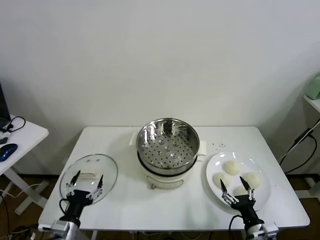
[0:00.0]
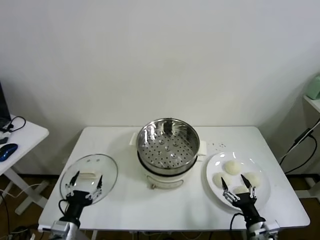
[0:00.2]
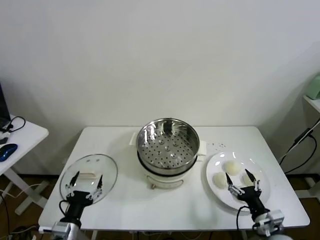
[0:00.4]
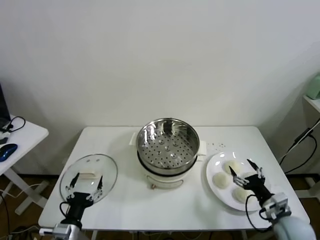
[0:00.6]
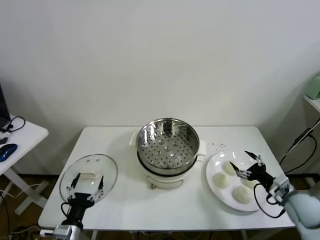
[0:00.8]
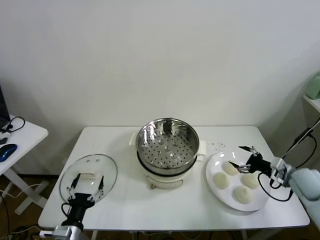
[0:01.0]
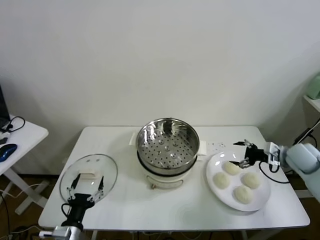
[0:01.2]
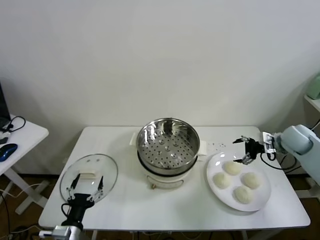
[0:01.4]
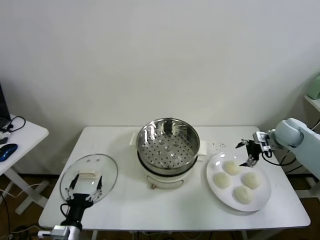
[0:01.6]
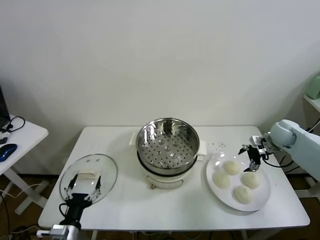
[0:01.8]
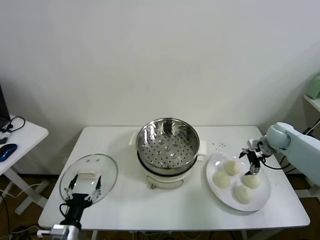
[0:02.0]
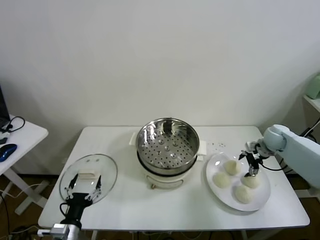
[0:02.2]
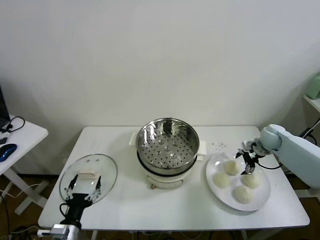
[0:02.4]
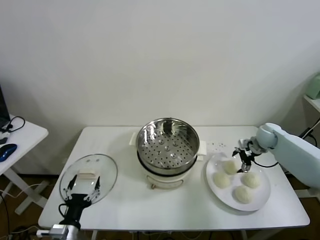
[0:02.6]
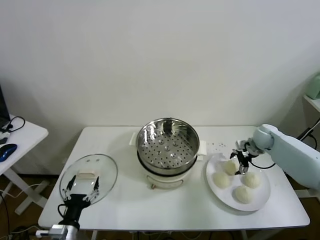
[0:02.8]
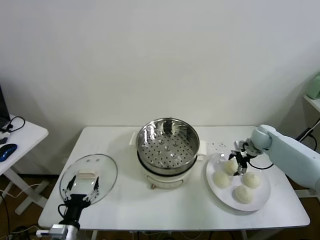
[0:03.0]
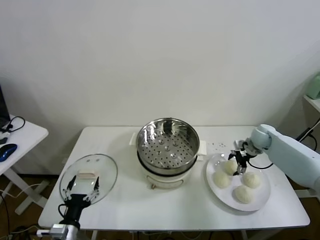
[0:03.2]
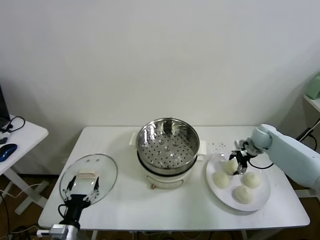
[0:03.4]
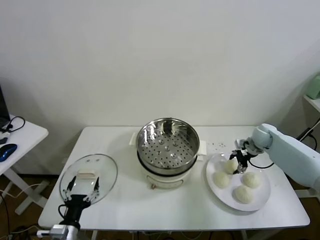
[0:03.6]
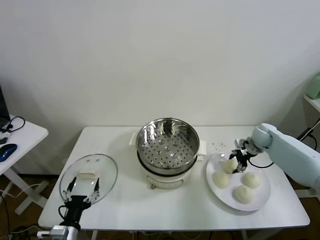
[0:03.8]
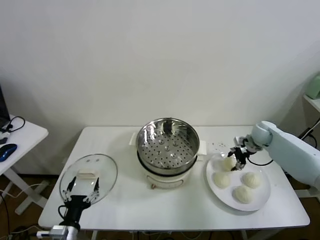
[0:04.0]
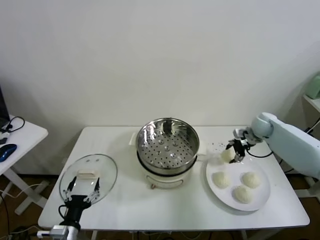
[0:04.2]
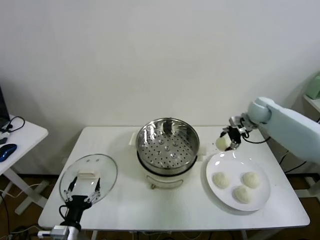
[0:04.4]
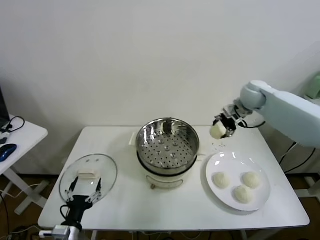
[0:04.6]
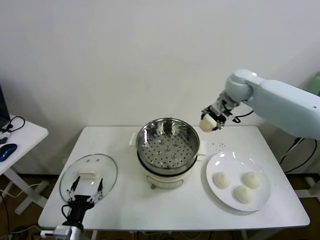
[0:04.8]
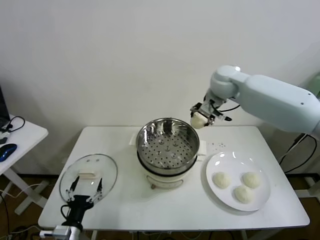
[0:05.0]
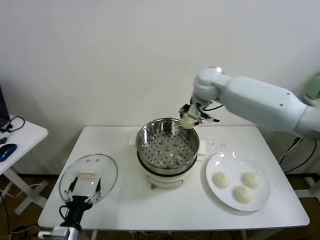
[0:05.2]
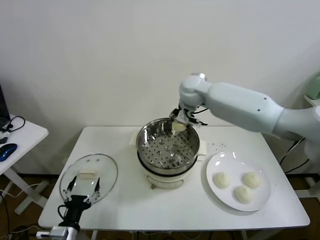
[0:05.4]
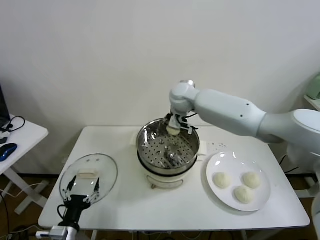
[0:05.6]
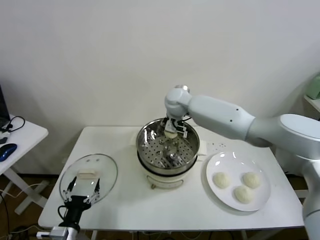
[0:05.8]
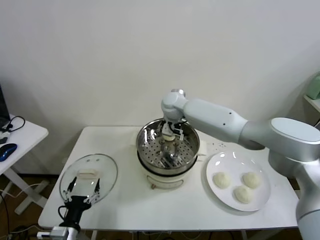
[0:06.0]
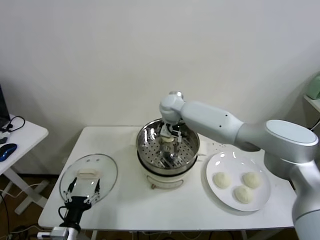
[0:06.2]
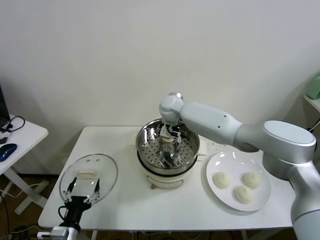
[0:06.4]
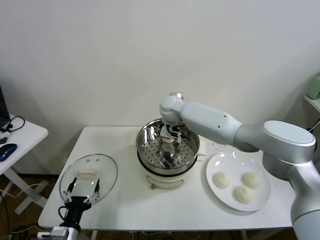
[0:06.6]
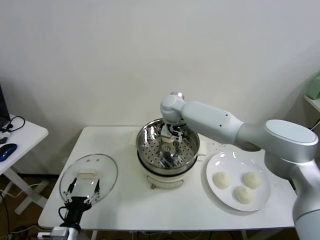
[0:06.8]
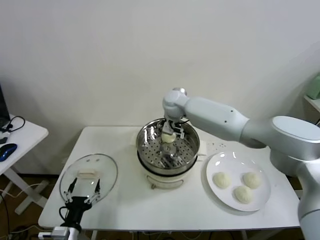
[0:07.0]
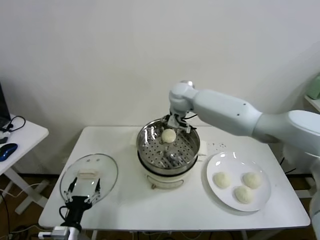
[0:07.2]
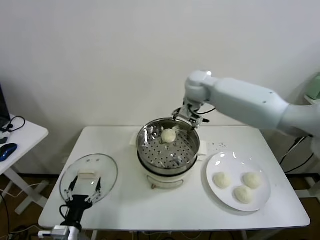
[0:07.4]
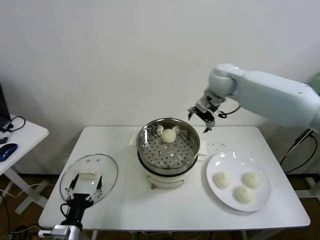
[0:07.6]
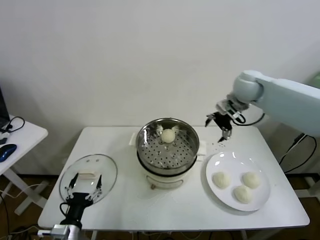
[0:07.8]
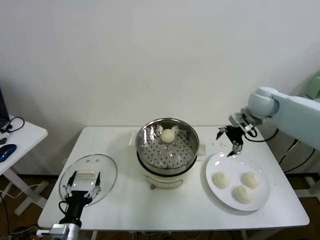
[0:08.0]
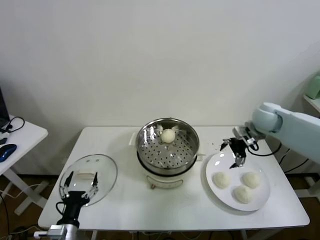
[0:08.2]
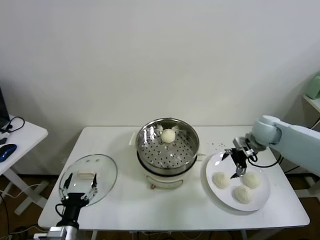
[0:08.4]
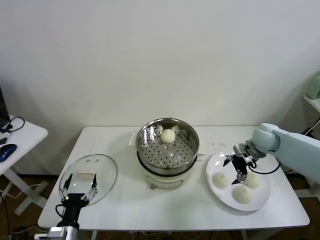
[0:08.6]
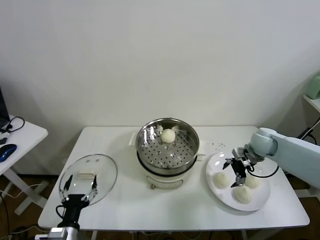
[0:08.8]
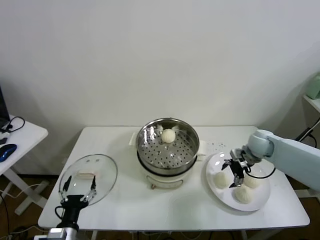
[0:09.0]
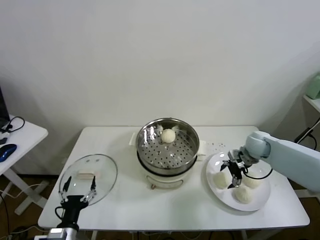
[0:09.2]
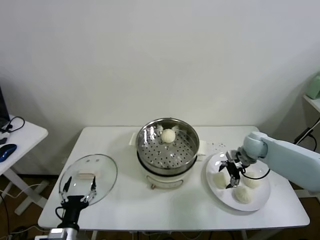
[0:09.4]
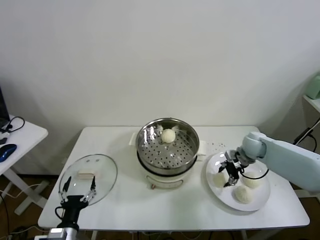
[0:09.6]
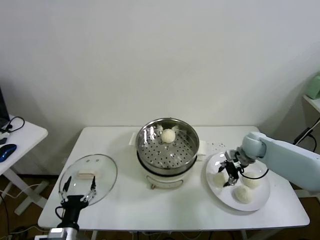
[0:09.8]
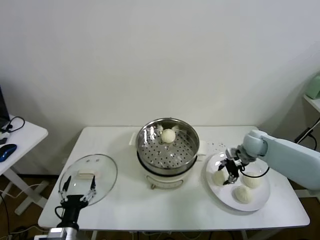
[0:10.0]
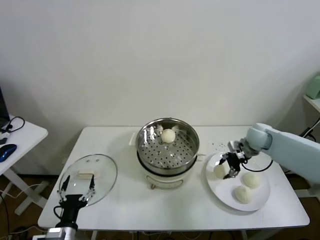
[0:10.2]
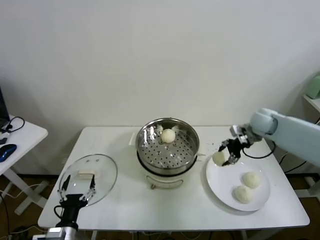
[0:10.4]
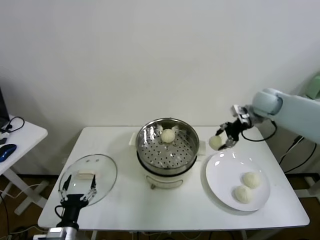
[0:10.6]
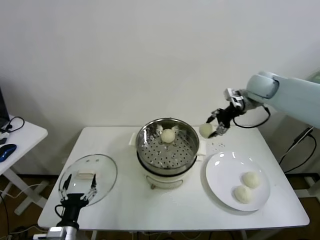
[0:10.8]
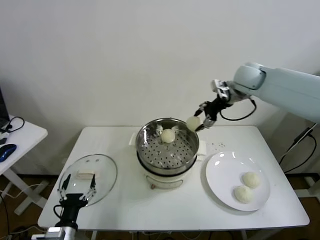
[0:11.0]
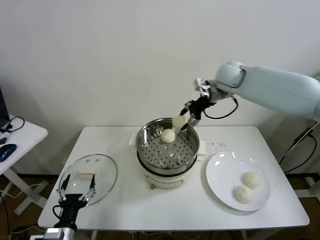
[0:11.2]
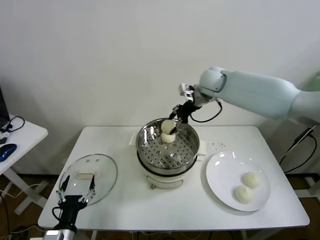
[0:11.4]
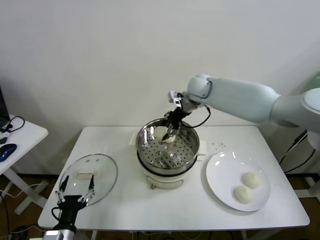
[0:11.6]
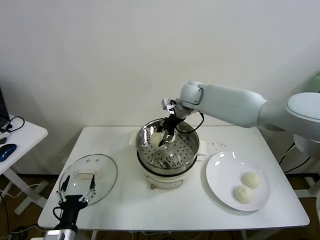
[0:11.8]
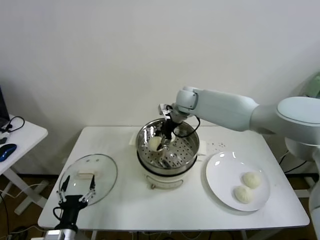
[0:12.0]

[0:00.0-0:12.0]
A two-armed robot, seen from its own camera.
Task of the whole recording: take steamed baozi put them in steamer.
Step, 0:00.0 to 0:03.4: Grasp the baozi in the plate with right gripper.
Step, 0:03.6 to 0:07.0: Place the baozi on the steamer with right gripper.
Step, 0:07.2 to 0:09.4: Grasp the baozi in the plate with right gripper.
0:01.6 to 0:03.0: The right gripper heads downward, covering about 5 cm.
0:03.0 to 0:04.4: The right gripper goes approximately 15 cm upward and to the left, and closes up.
0:04.4 to 0:06.0: The right gripper is displaced to the left by about 30 cm.
0:06.0 to 0:07.6: The right gripper travels to the right and upward by about 20 cm, and opens its fingers.
0:07.6 to 0:09.0: The right gripper goes about 25 cm downward and to the right.
0:09.0 to 0:10.4: The right gripper is displaced upward by approximately 10 cm, and closes.
0:10.4 to 0:12.0: The right gripper moves to the left, roughly 25 cm.

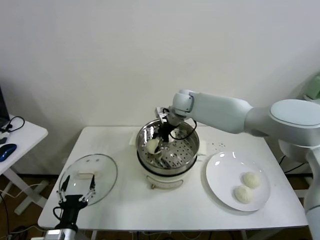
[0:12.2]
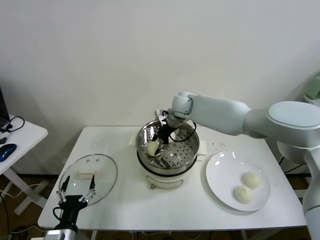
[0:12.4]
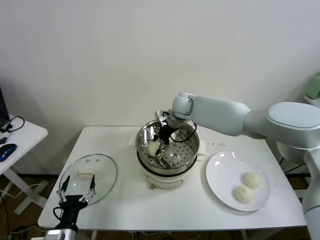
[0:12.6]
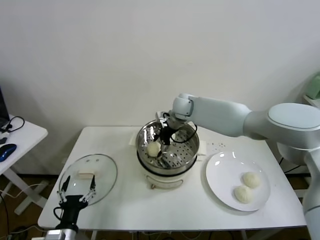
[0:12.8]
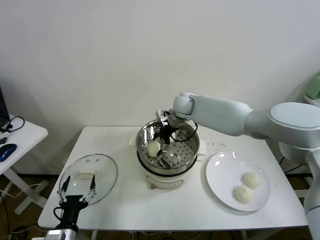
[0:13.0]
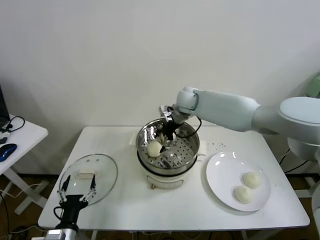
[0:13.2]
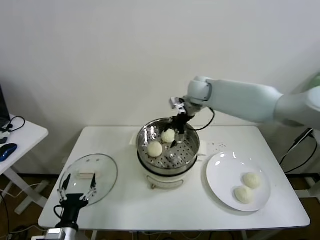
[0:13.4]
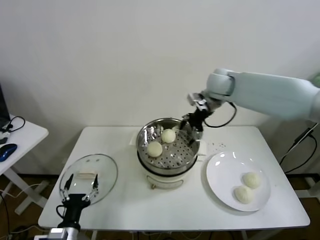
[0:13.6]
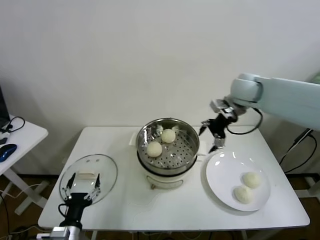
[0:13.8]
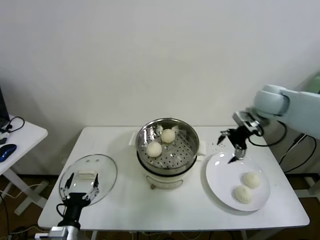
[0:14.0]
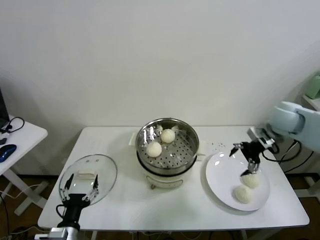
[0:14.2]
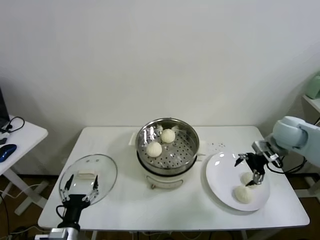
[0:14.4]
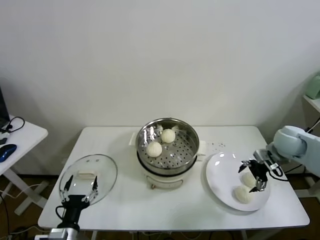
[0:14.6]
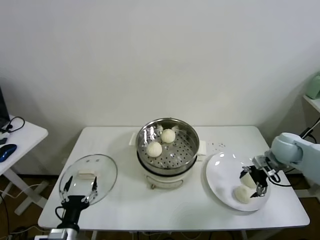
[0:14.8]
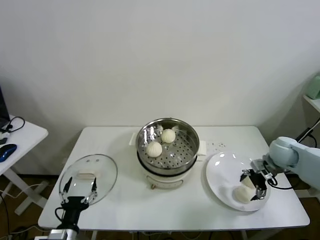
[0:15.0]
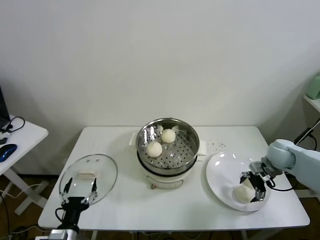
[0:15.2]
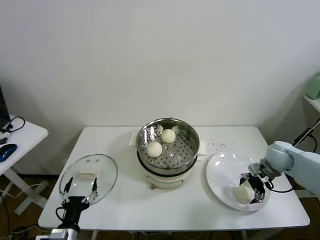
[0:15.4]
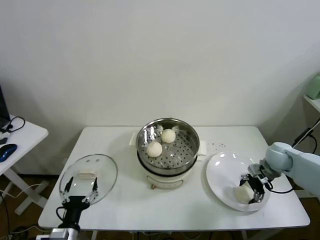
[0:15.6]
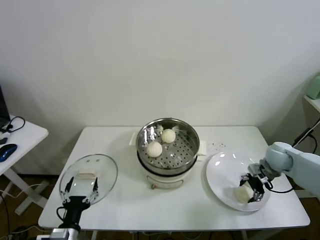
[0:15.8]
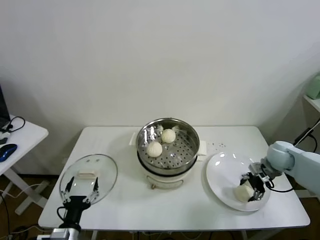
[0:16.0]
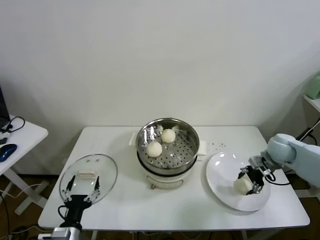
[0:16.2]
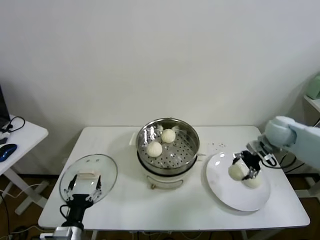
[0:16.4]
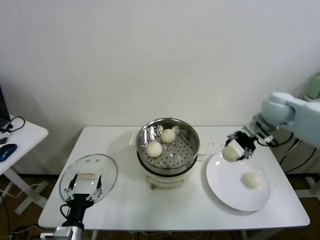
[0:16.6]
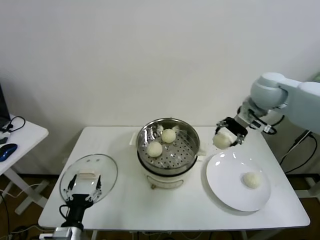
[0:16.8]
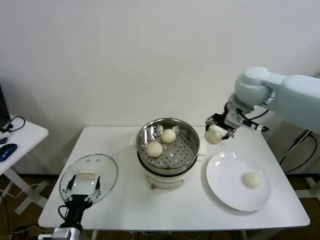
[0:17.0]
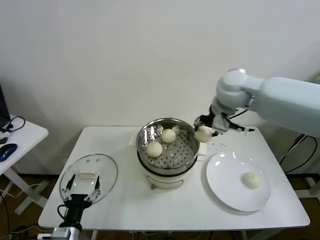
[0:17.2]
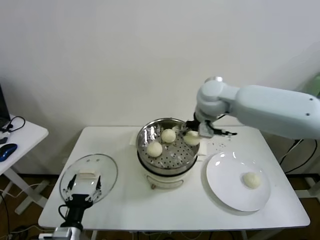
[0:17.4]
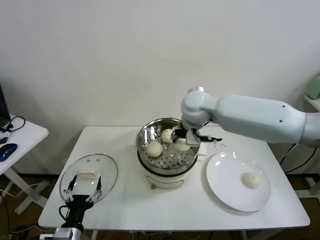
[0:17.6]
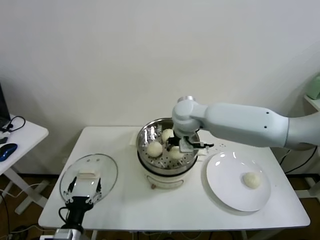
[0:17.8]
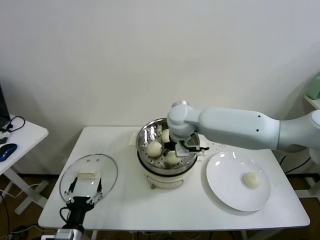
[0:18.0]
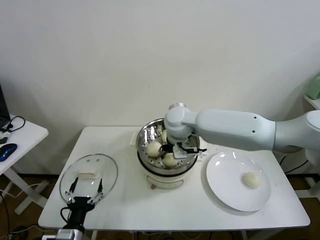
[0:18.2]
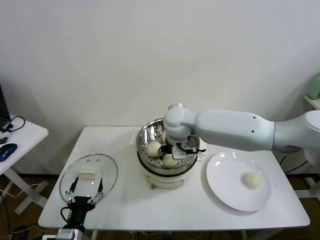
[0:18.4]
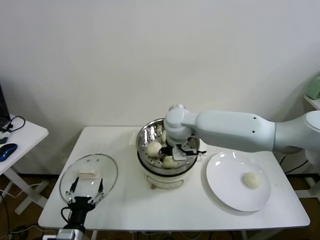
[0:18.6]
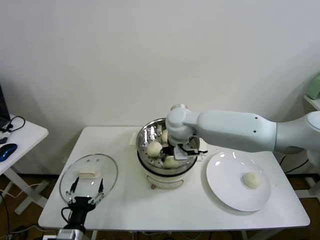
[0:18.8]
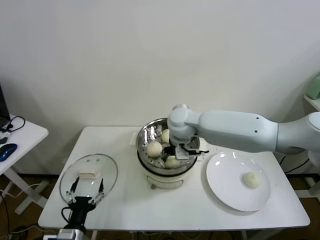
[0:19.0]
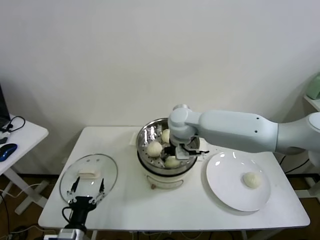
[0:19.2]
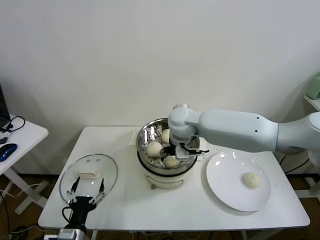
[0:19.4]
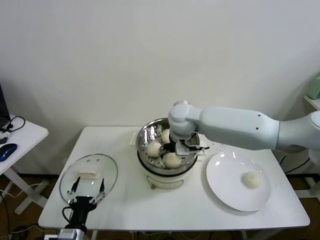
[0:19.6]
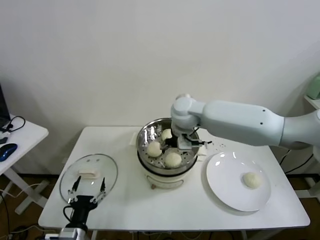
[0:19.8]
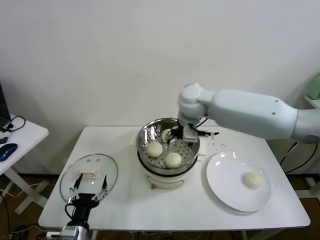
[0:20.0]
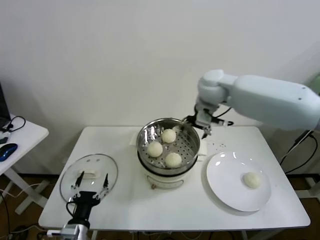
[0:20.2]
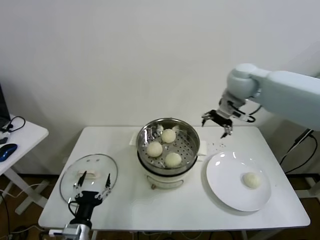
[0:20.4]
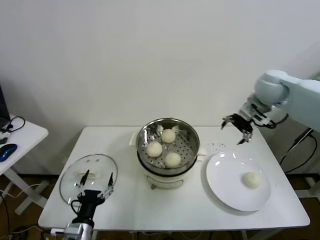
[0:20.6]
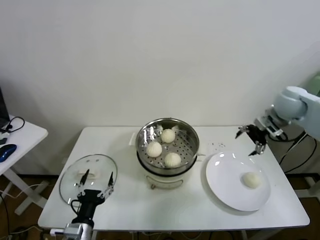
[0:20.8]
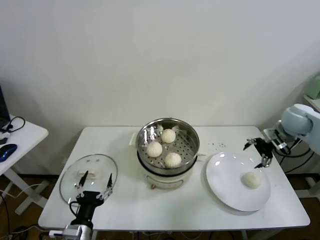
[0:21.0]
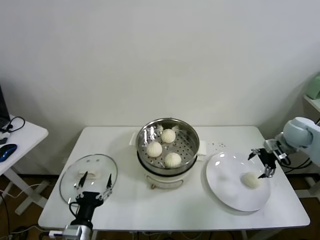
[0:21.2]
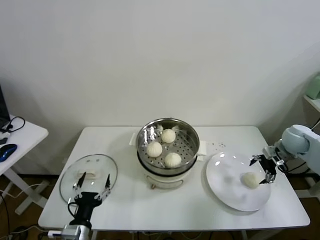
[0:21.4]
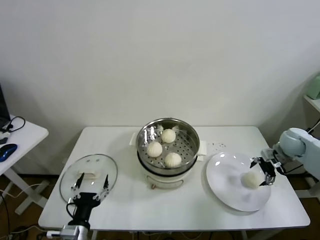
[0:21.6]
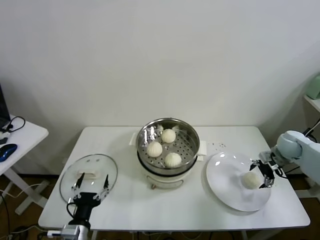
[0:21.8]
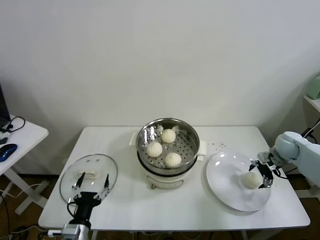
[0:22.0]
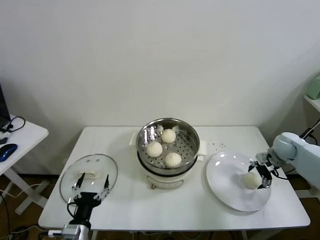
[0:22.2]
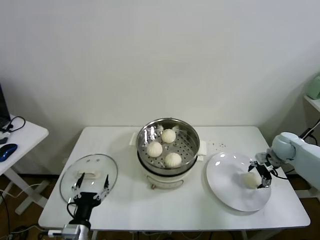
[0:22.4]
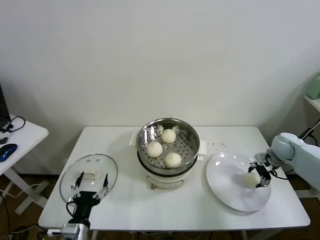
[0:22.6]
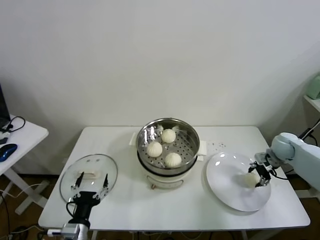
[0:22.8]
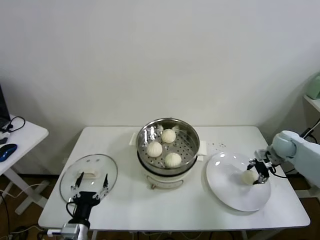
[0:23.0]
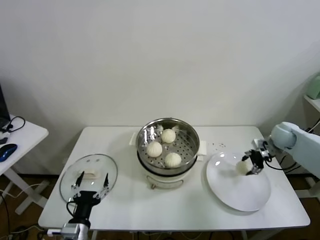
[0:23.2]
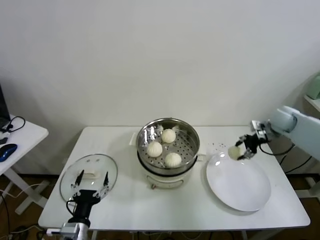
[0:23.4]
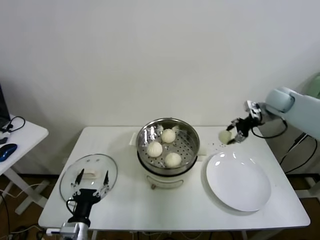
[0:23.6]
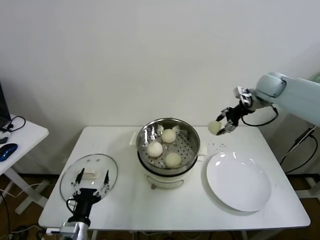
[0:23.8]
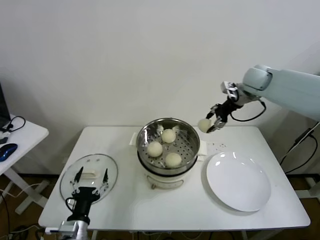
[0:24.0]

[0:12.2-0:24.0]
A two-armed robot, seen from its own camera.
Task of the whole recording: take steamed baozi put them in steamer.
Step, 0:13.4 to 0:15.8: Grasp the baozi in the plate with right gripper.
Step, 0:16.0 to 0:19.6: Place the baozi on the steamer with right gripper.
Step, 0:19.8 to 0:22.6: Grasp the baozi in the plate with right gripper.
0:12.2 to 0:13.6: The right gripper moves to the right and upward, some 15 cm, and opens its fingers.
0:13.6 to 0:15.2: The right gripper moves downward, to the right and backward, about 30 cm.
0:15.2 to 0:16.6: The right gripper travels upward and to the left by approximately 20 cm, and closes.
0:16.6 to 0:18.2: The right gripper is displaced to the left by roughly 30 cm.
0:18.2 to 0:19.6: The right gripper opens.
0:19.6 to 0:21.0: The right gripper moves to the right, some 40 cm.
0:21.0 to 0:22.6: The right gripper travels downward by approximately 15 cm, and closes.
0:22.6 to 0:24.0: The right gripper travels upward, to the left and forward by some 30 cm, and closes its fingers.
